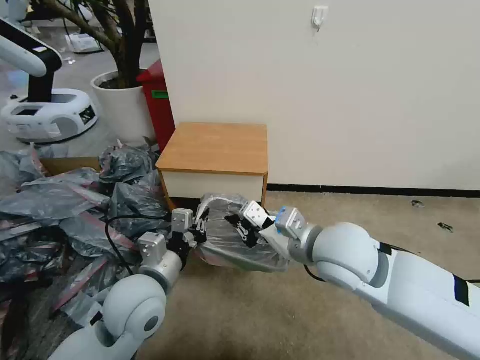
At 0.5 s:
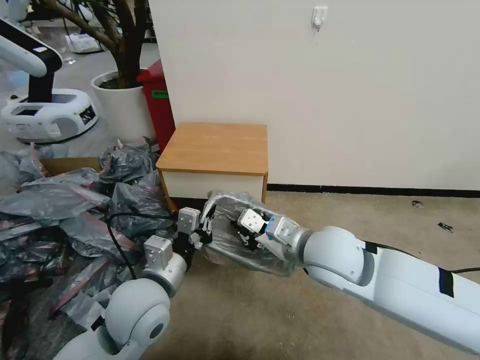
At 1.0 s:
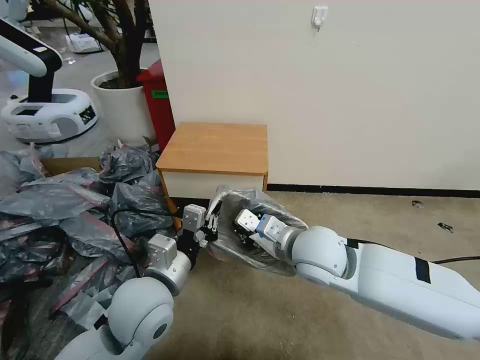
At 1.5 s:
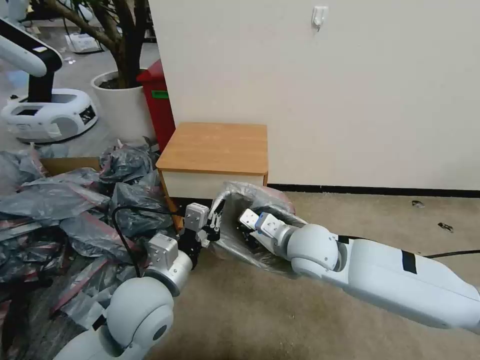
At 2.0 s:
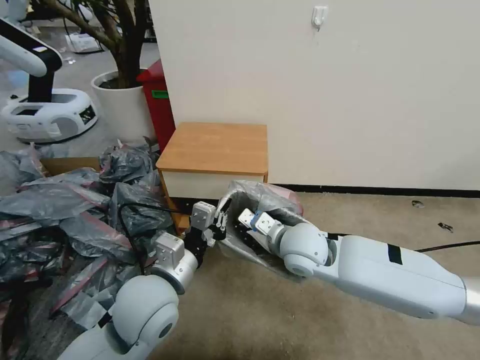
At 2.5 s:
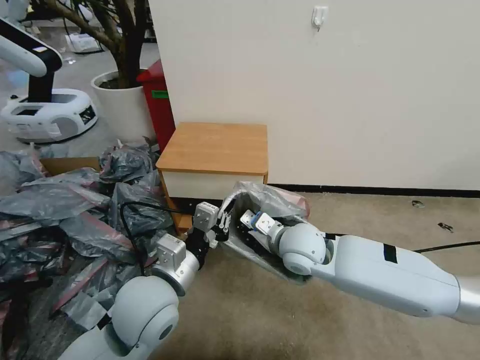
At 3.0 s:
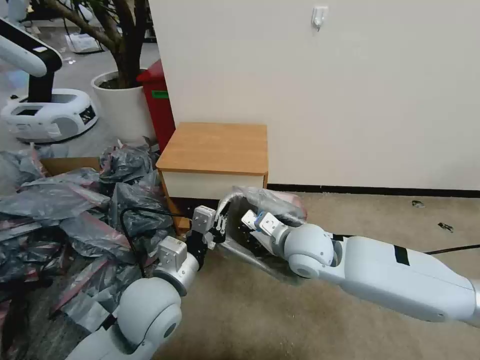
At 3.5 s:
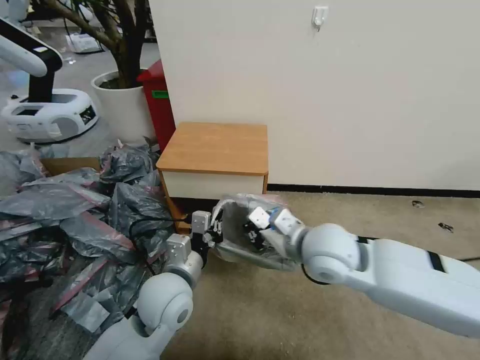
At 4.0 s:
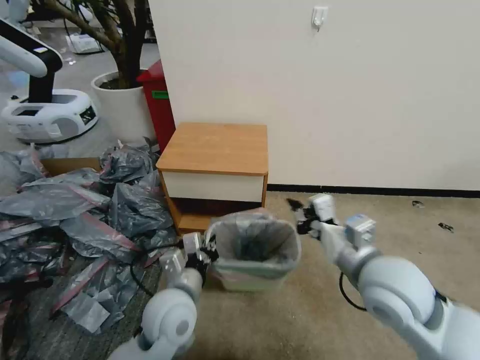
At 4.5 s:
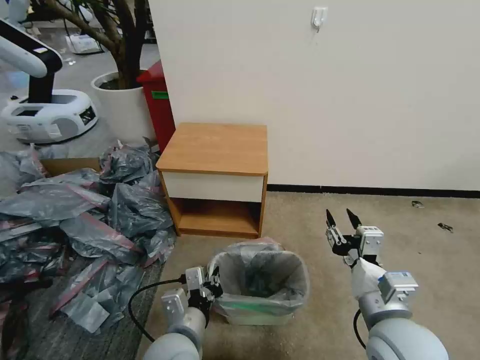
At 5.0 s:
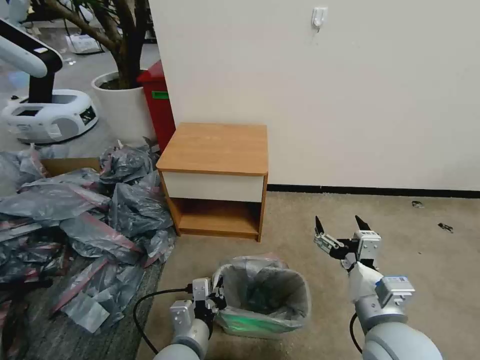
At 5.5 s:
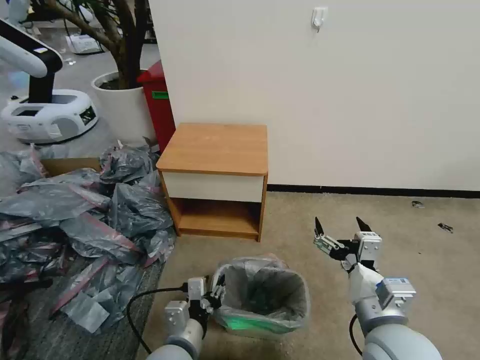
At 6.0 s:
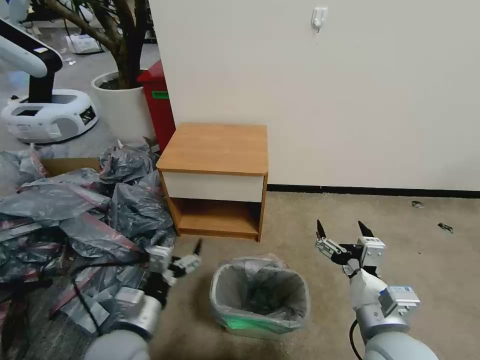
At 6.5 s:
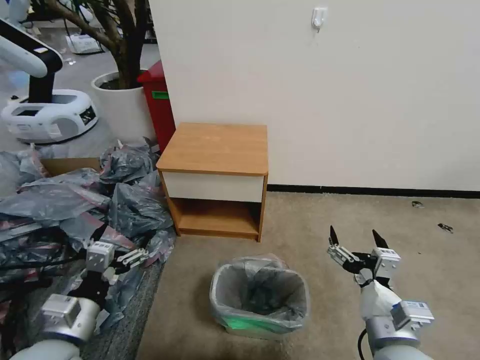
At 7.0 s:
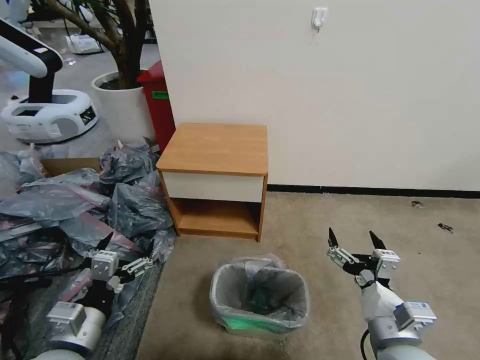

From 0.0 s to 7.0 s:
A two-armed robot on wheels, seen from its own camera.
Task of the whole recording: Pick up the garbage bag from the table and place it over the trash can.
From 0.0 s to 2.0 s: The right gripper moves downward and forward, about 10 cm.
From 2.0 s to 3.5 s: The left gripper shifts approximately 5 cm downward, while the right gripper ends up approximately 5 cm from where it was.
From 3.5 s to 5.0 s: The left gripper travels backward and downward by about 15 cm; the right gripper travels backward, to the right and downward by some 20 cm, and opens.
From 5.0 s to 7.0 s: The left gripper moves to the left and upward, about 20 cm, and opens.

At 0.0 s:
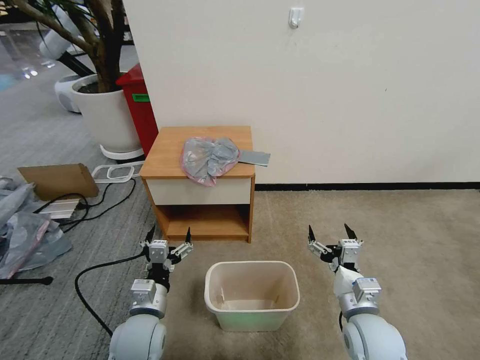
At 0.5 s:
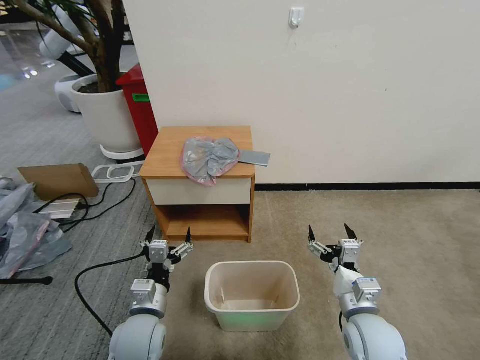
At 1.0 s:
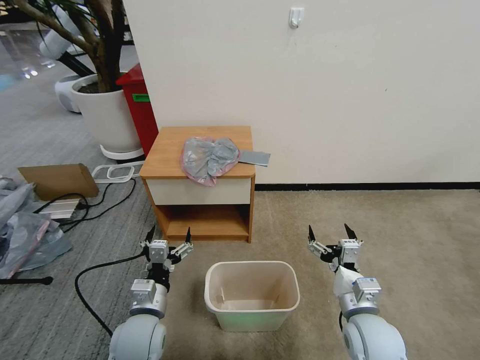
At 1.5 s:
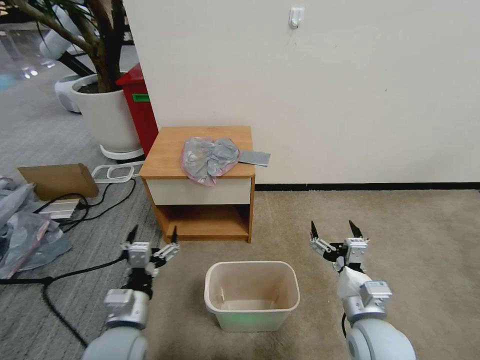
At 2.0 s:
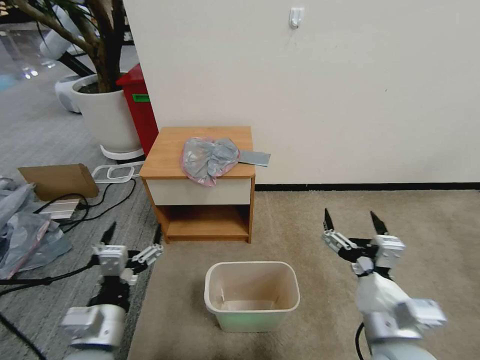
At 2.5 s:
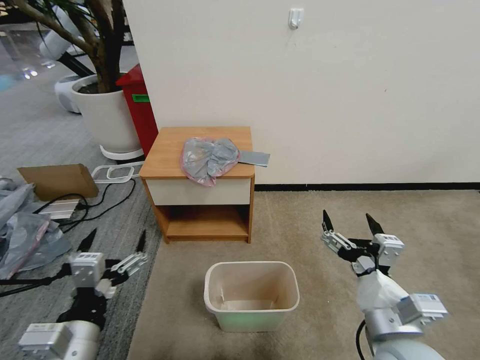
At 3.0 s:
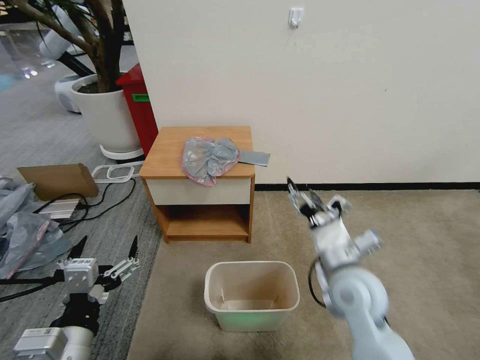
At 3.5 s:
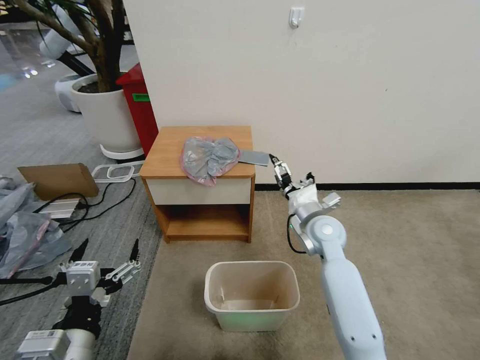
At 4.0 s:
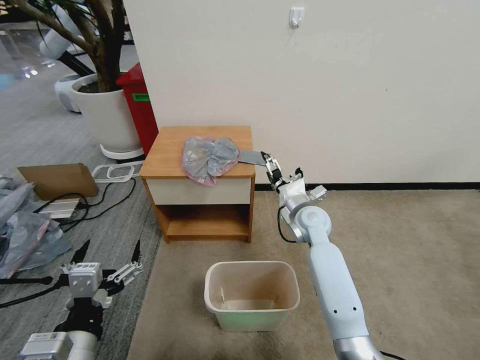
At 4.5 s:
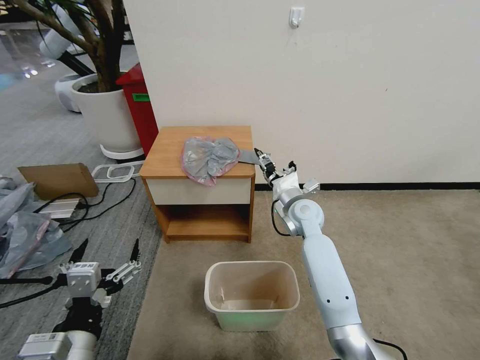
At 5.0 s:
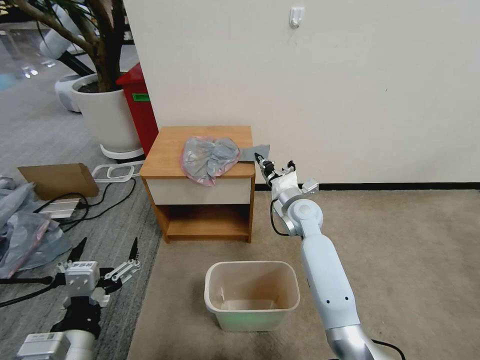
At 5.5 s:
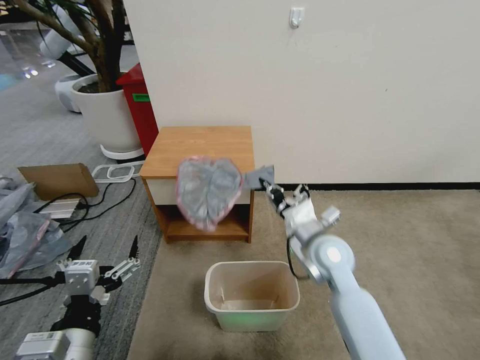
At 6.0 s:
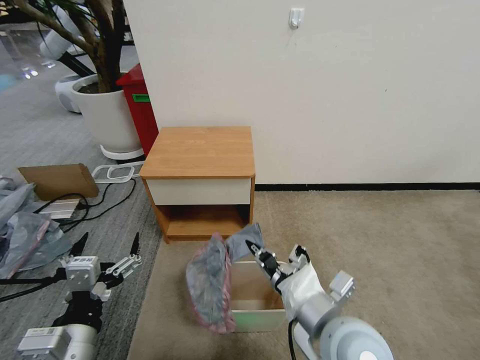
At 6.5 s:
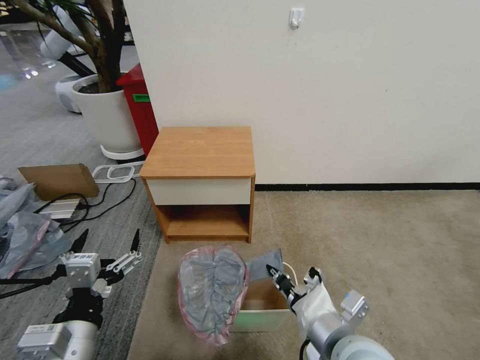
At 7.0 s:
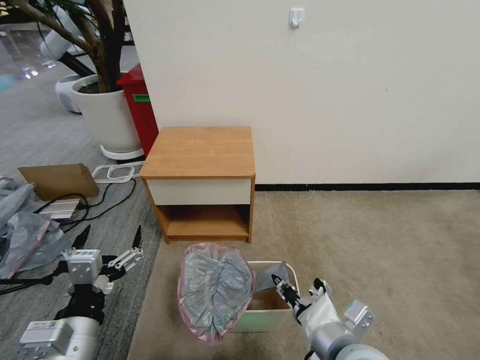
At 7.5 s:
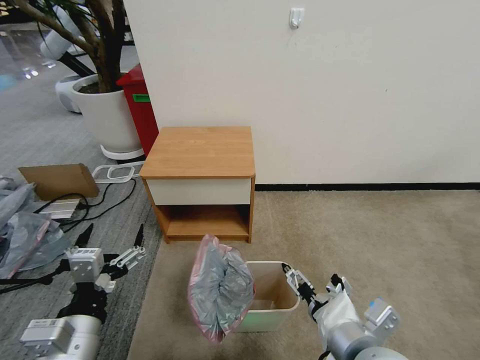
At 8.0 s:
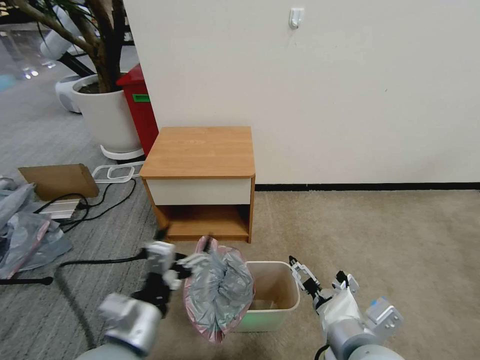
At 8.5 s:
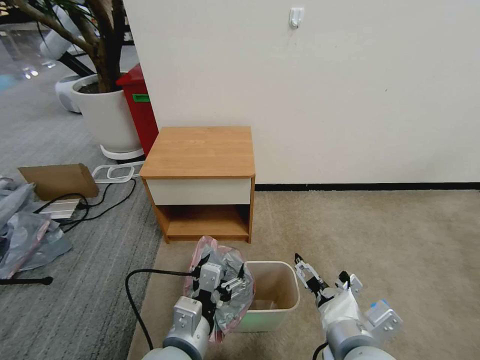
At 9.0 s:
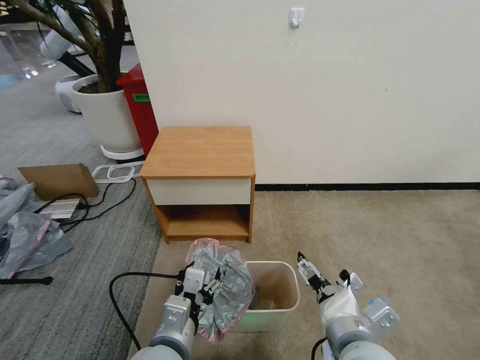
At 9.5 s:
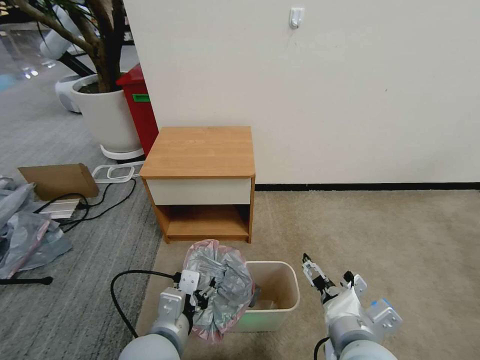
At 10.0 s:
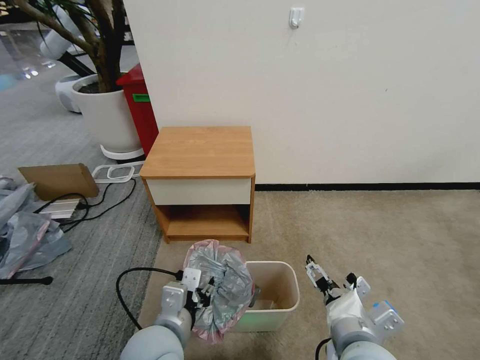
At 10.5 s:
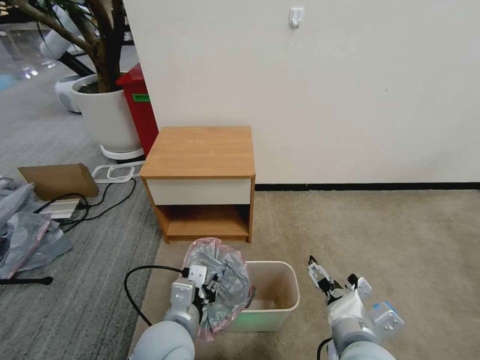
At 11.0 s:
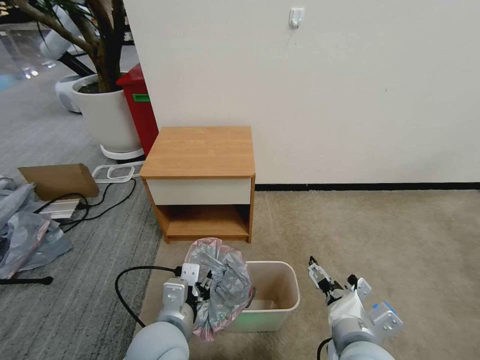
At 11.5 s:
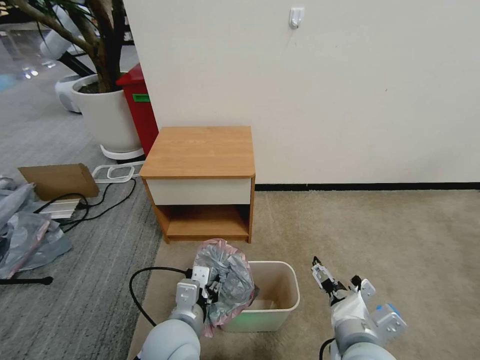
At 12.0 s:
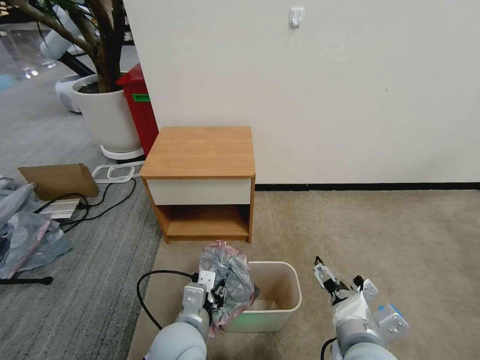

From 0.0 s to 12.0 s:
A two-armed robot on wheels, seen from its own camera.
Task of the whole recording: Pick up the garbage bag from the table and place it over the trash can.
From 2.0 s to 4.0 s: The left gripper ends up roughly 5 cm from where it was. The right gripper moves forward, about 30 cm.
From 4.0 s to 6.0 s: The right gripper heads backward, covering about 30 cm, and closes its fingers.
From 6.0 s to 8.0 s: The right gripper opens its fingers; the left gripper goes some 5 cm to the right.
From 8.0 s to 10.0 s: The right gripper changes place by some 5 cm; the left gripper ends up about 5 cm from where it was, and closes its fingers.
From 10.0 s to 12.0 s: The grippers make only small movements.

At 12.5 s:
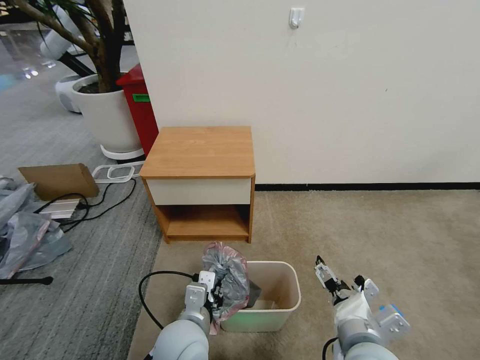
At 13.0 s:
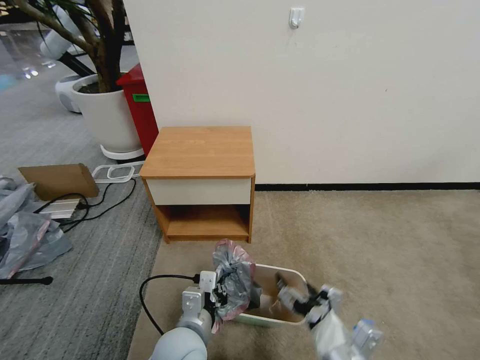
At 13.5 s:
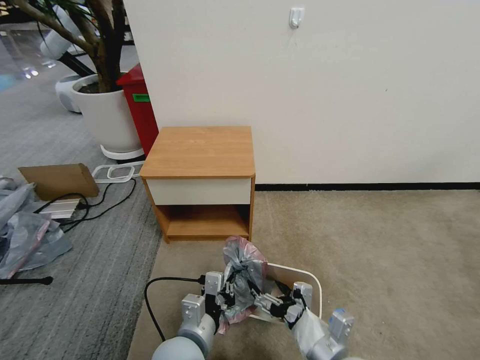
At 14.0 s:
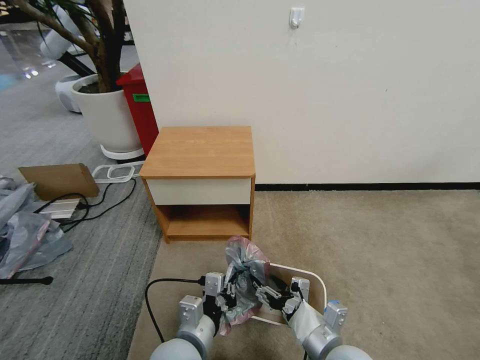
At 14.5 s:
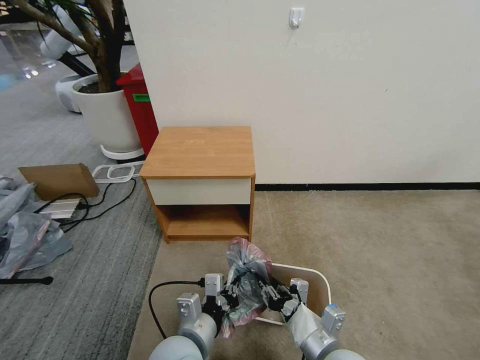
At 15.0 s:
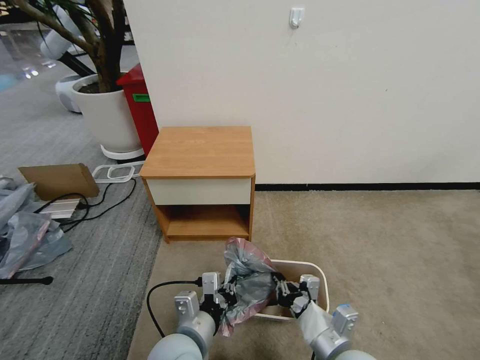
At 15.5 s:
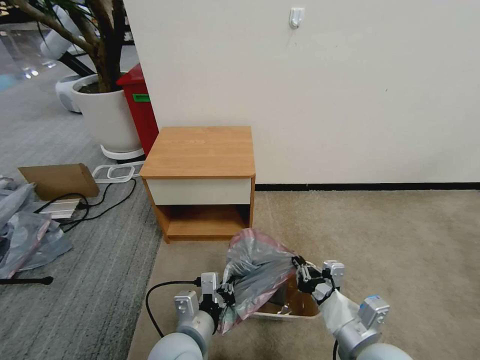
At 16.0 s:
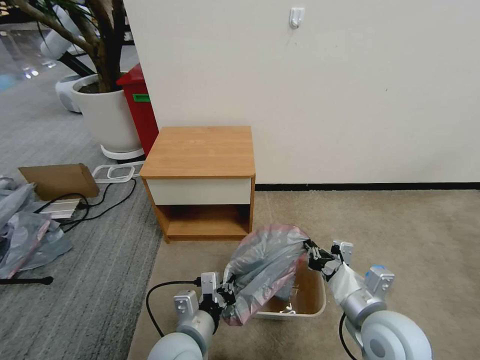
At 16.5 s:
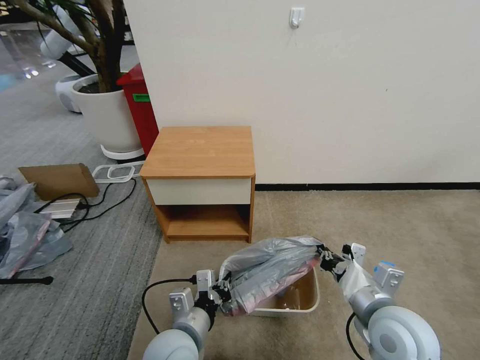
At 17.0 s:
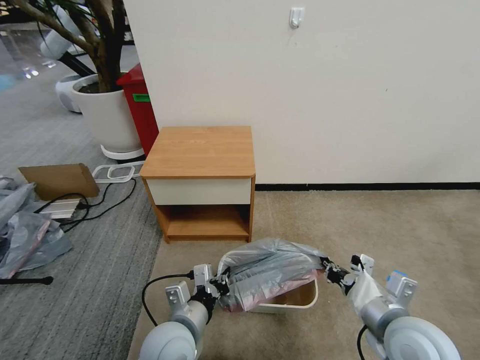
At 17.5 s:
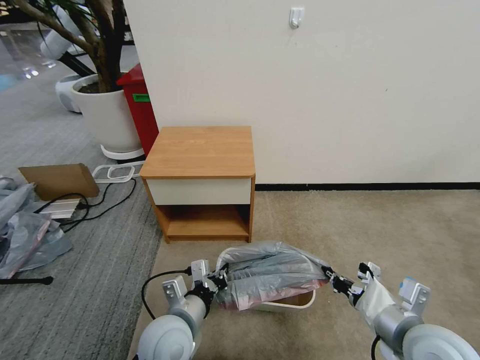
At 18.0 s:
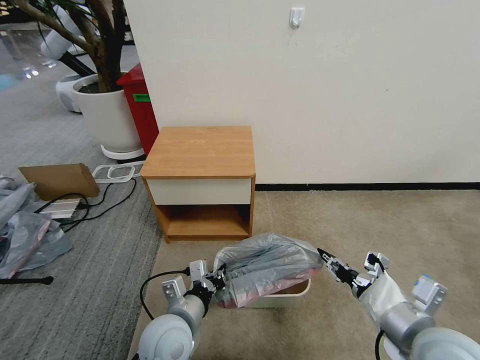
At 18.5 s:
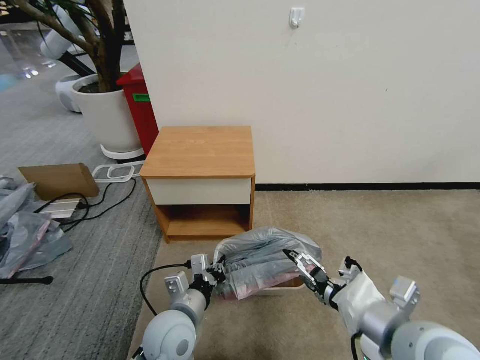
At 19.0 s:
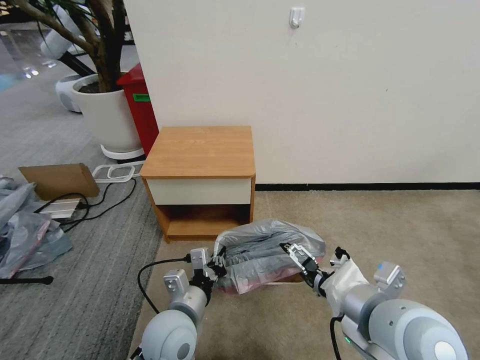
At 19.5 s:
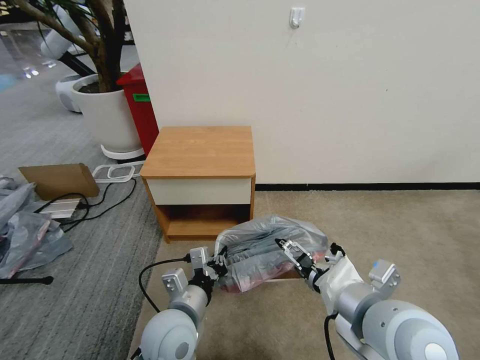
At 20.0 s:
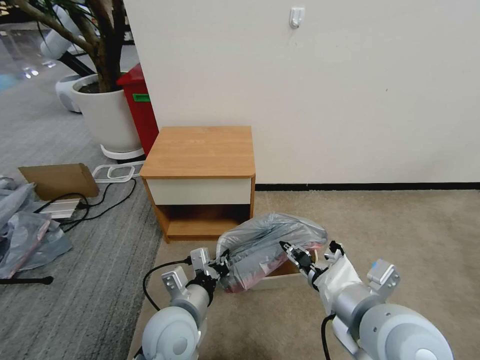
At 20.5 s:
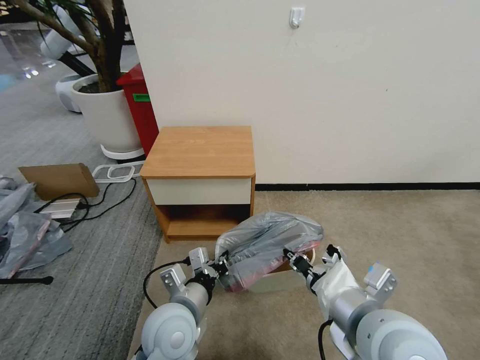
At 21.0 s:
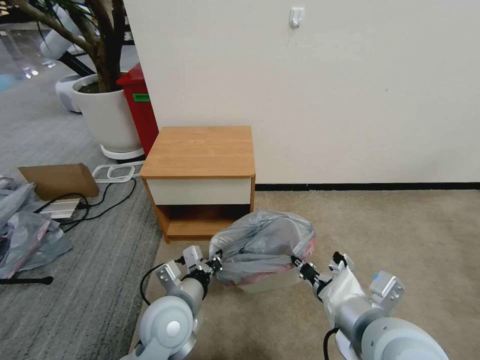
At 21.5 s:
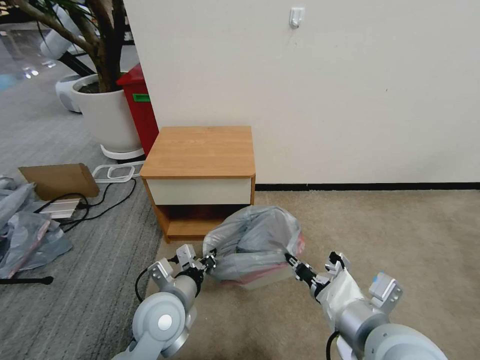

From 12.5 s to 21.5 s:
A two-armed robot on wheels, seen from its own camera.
Task of the whole recording: Pick up the garbage bag from the table and place it over the trash can.
From 12.5 s to 14.5 s: The right gripper shifts about 5 cm downward, and closes.
From 14.5 s to 17.0 s: The right gripper is displaced upward and to the right by some 15 cm.
From 17.0 s to 19.5 s: The right gripper moves upward and to the left, some 10 cm, and opens its fingers.
From 19.5 s to 21.5 s: The right gripper closes up.
